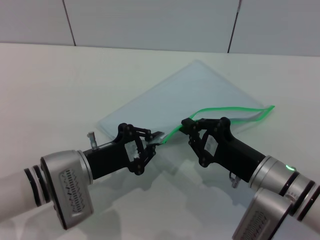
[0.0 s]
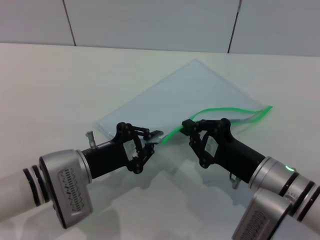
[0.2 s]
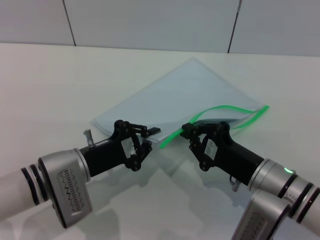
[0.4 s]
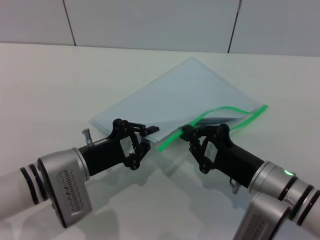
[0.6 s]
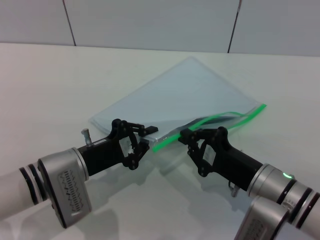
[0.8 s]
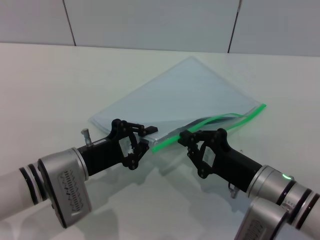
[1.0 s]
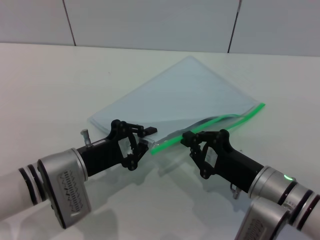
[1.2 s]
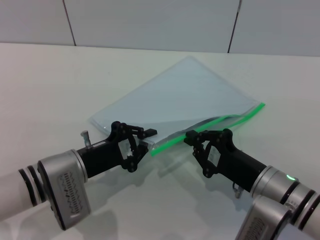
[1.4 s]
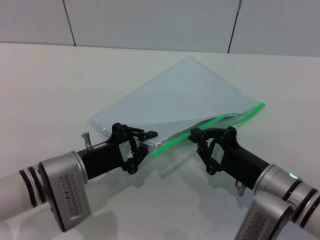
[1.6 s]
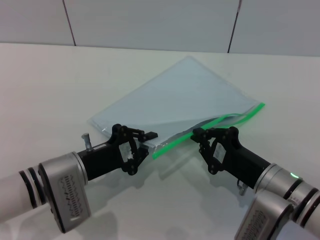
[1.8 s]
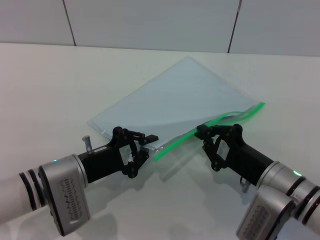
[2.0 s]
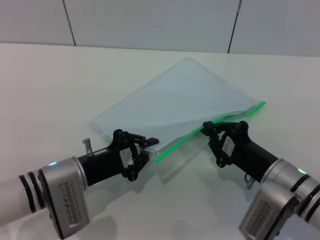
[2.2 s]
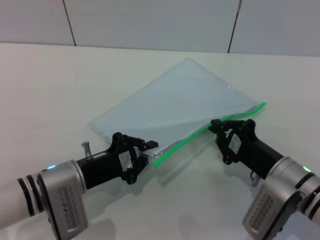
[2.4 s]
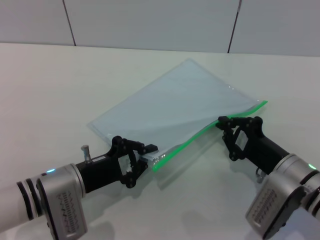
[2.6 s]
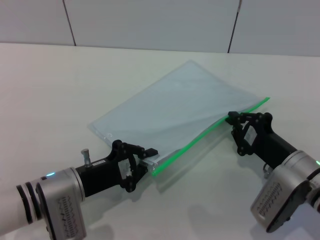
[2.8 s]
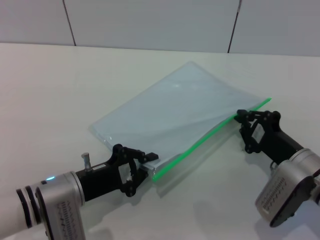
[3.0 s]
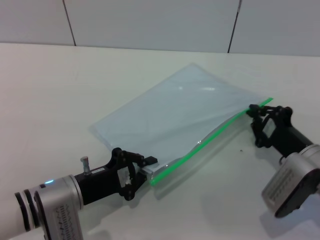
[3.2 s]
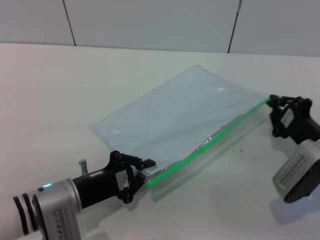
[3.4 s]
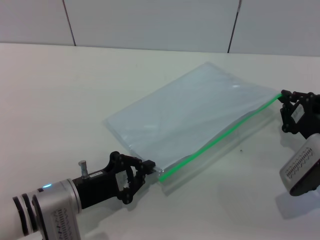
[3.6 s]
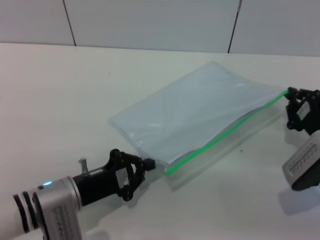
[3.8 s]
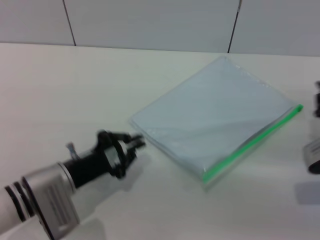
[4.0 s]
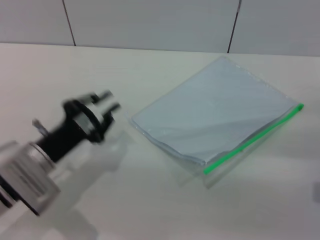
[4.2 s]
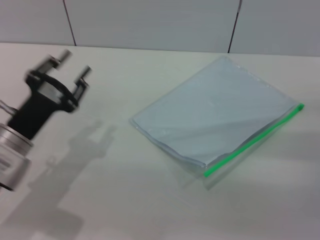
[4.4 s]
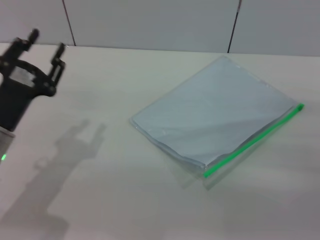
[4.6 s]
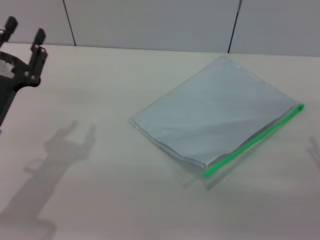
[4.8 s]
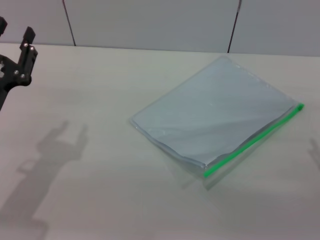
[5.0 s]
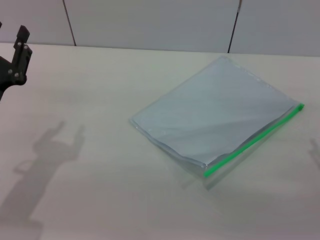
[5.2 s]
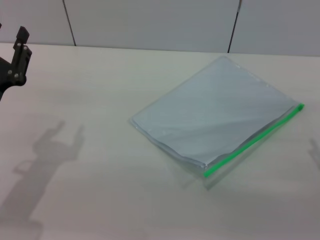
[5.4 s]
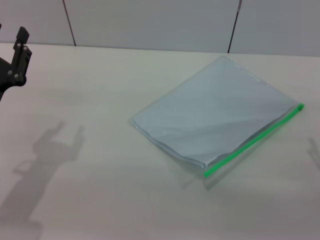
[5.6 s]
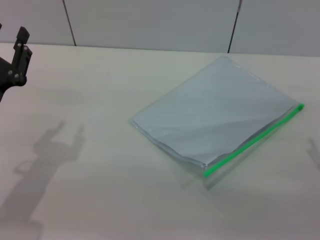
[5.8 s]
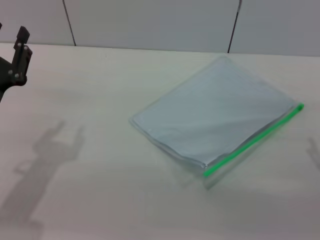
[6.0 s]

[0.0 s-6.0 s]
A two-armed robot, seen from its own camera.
Step, 0.0 to 4.2 s: Pulling up the zipper on the transparent plastic bag with the right gripper to close it.
Step, 4.6 to 5.0 s: Place the transparent plastic bag.
0.0 to 1.6 s: The grippers make only small movements.
1.6 to 3.0 s: The right gripper shifts by approximately 5 cm.
3.0 to 4.4 s: The right gripper goes roughly 10 cm to the right, and opens its fingers; the left gripper moves to the left, roughly 5 cm, and opens.

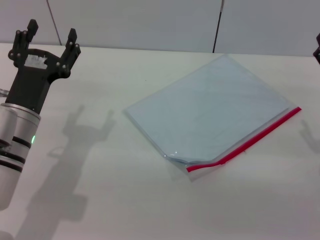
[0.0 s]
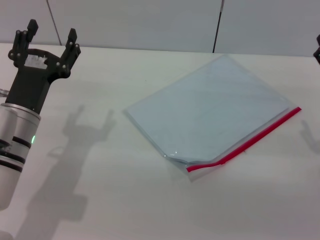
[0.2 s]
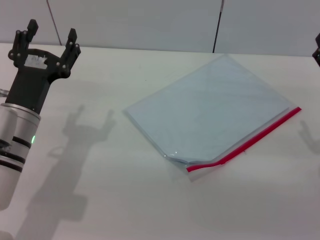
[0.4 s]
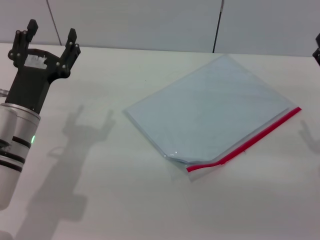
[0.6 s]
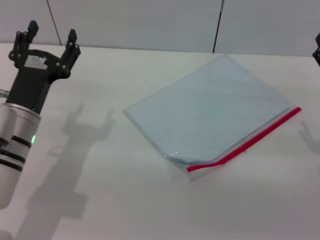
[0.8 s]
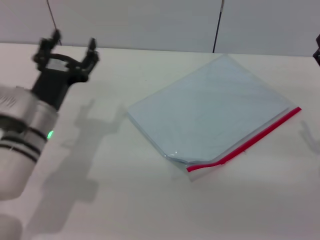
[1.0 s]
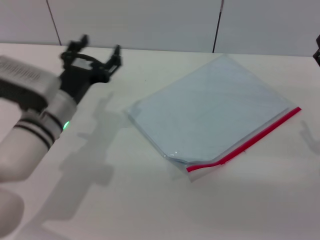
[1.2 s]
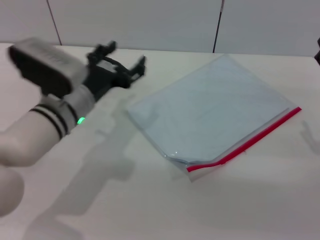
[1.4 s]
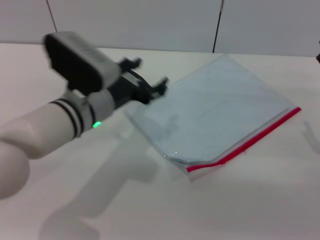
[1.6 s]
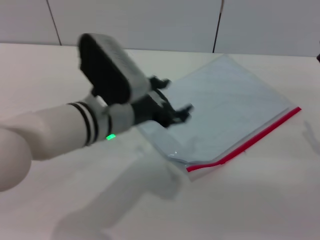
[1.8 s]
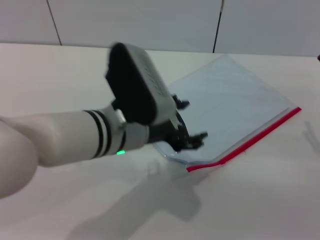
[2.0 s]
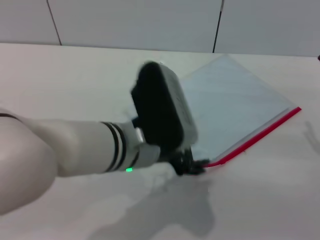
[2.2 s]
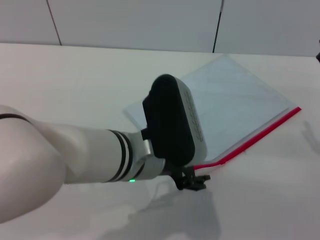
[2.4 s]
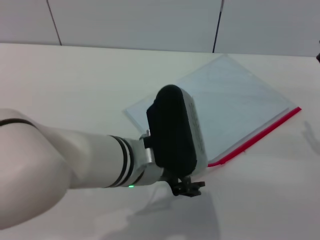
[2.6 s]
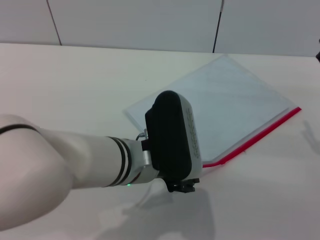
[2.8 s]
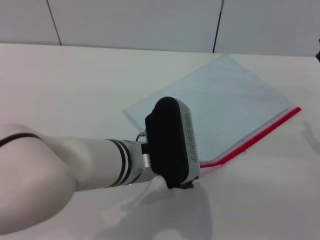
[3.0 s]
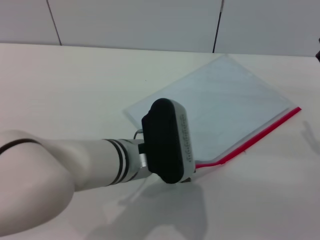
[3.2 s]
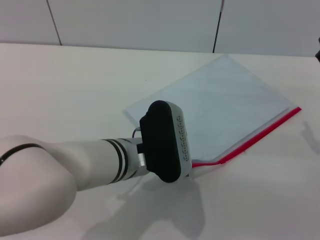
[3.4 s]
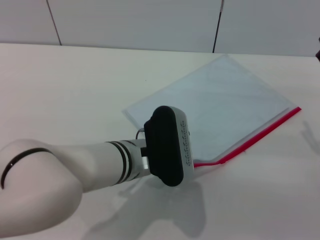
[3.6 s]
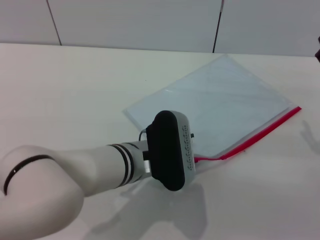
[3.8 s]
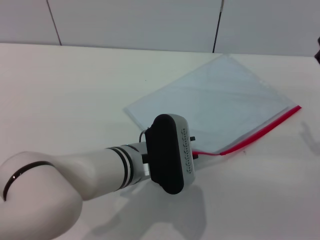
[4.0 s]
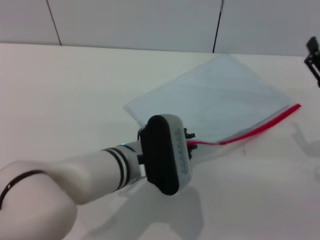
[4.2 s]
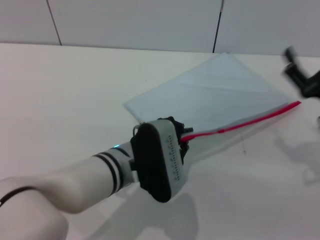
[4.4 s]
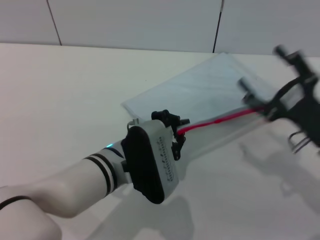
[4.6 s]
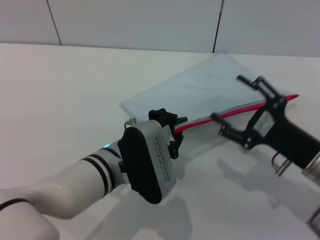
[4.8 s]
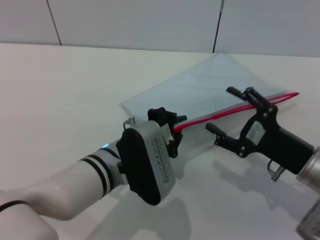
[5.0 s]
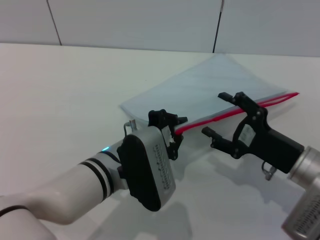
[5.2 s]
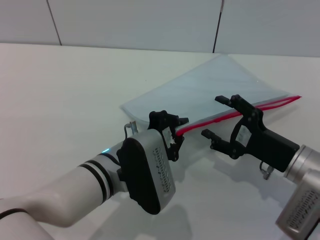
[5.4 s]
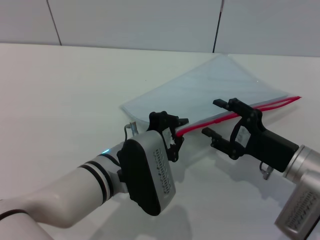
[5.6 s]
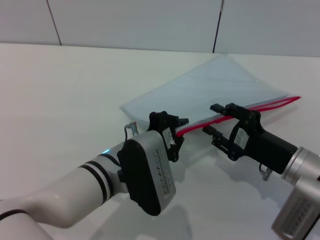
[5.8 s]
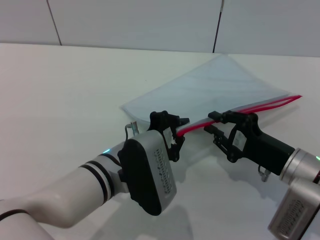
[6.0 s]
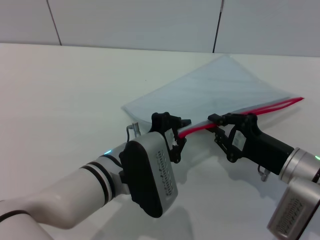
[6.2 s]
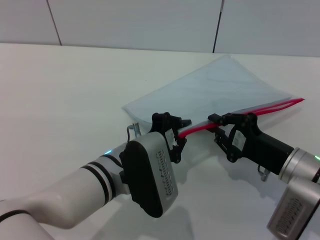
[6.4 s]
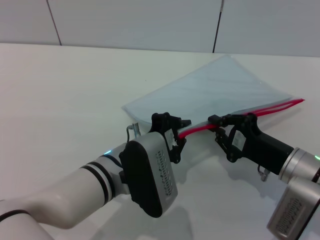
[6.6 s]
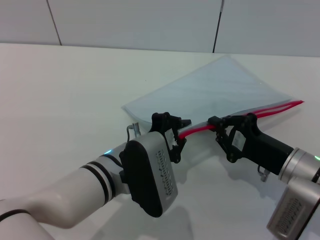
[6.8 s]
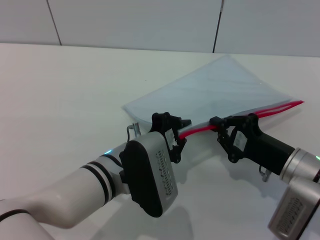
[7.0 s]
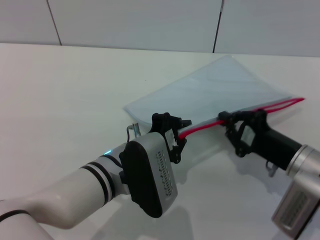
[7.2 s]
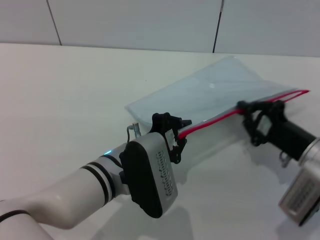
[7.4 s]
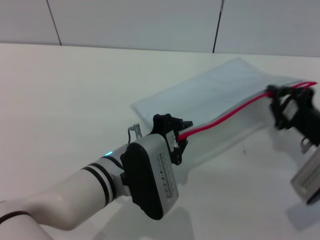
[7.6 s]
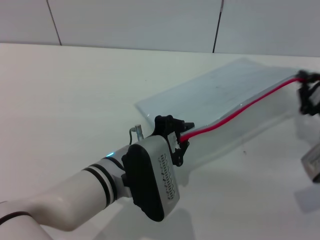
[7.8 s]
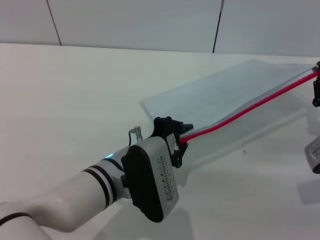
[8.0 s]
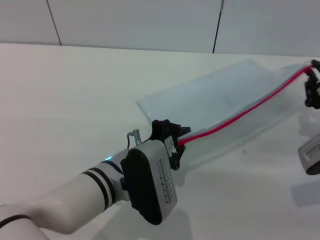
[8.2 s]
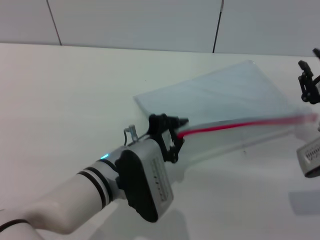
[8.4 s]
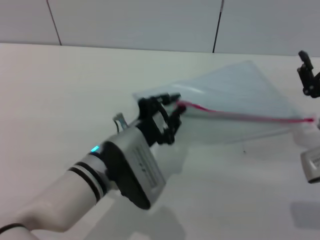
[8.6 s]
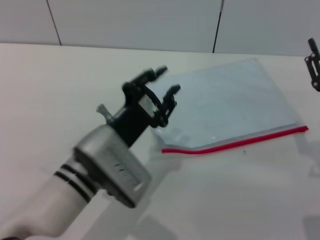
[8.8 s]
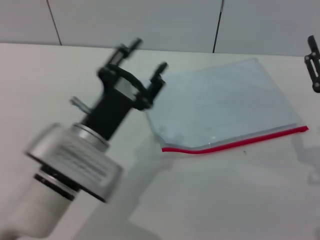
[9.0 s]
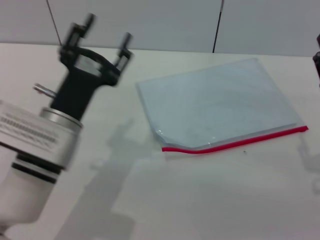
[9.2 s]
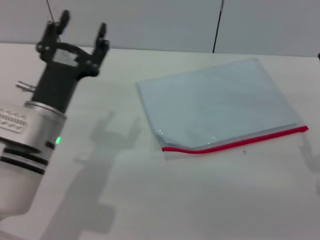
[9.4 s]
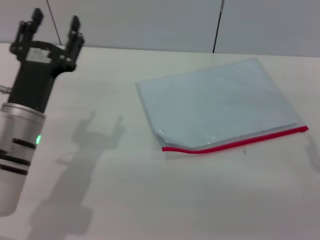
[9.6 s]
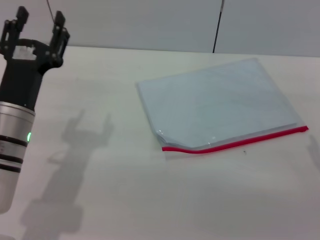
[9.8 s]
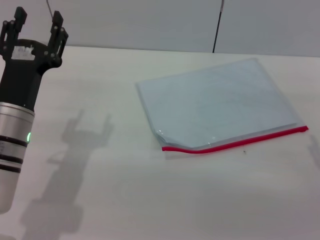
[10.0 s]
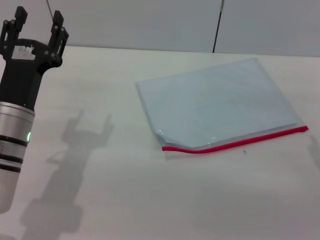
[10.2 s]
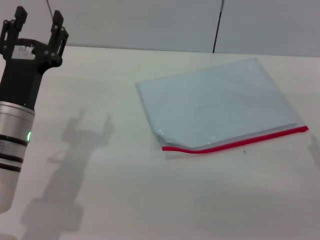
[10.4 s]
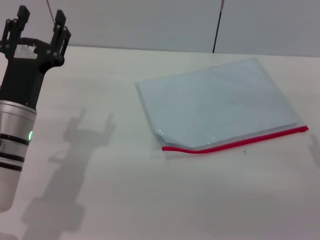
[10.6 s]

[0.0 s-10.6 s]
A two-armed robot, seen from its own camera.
Step, 0.0 to 4.4 s: Pick up the transparent plastic bag with the left gripper.
Step, 4.6 to 8.6 s: Pulling up the zipper on the transparent plastic bag with the right gripper to close it.
Step, 8.8 to 9.6 s: Place the transparent plastic bag.
0.0 to 1.6 s: The left gripper moves to the right, approximately 10 cm.
1.6 to 3.0 s: The left gripper moves to the right and backward, roughly 10 cm.
3.0 to 4.6 s: The left gripper closes its fingers.
4.6 to 6.0 s: The right gripper closes its fingers.
6.0 to 7.6 s: The right gripper moves to the right, about 5 cm, and closes its fingers.
7.6 to 9.0 s: The left gripper opens up. The right gripper shifts by roughly 5 cm, and opens its fingers.
9.0 to 10.6 s: The left gripper travels to the left by some 10 cm.

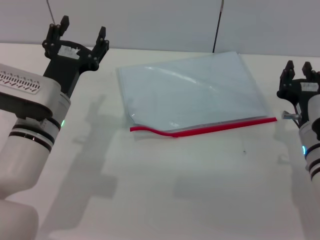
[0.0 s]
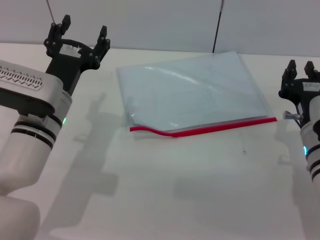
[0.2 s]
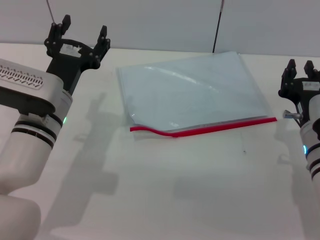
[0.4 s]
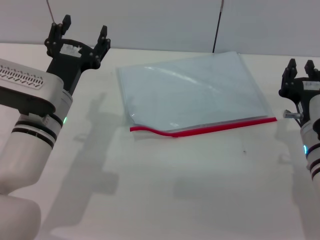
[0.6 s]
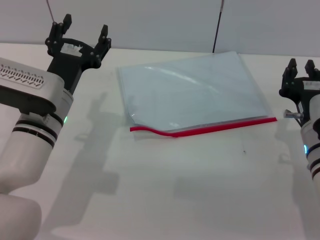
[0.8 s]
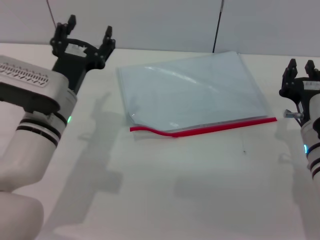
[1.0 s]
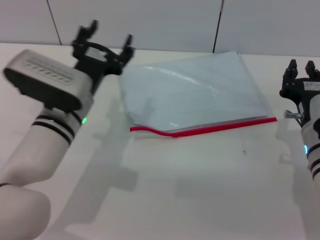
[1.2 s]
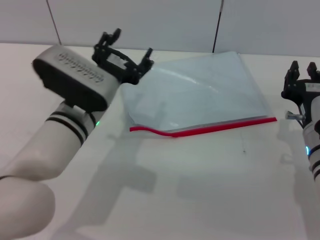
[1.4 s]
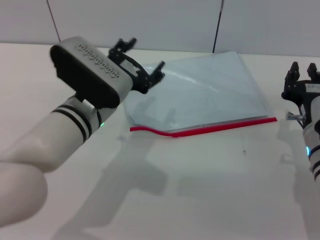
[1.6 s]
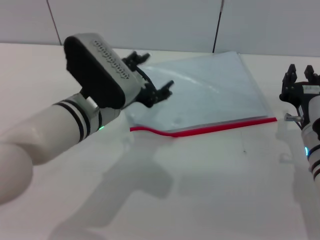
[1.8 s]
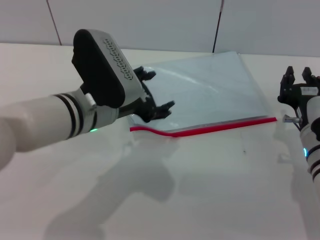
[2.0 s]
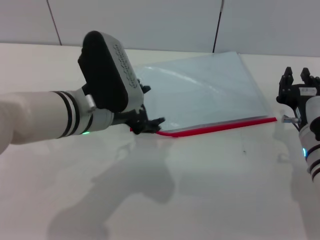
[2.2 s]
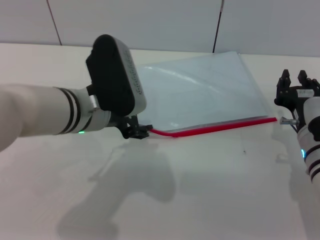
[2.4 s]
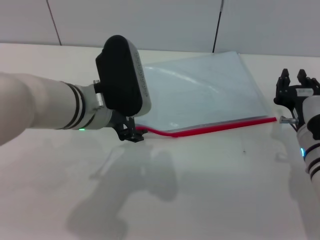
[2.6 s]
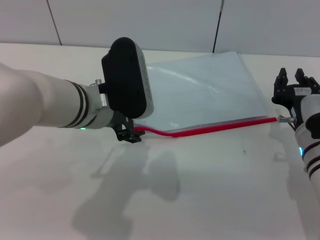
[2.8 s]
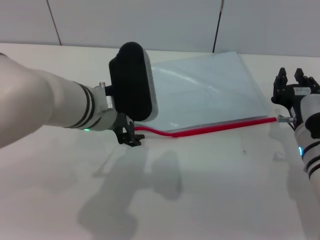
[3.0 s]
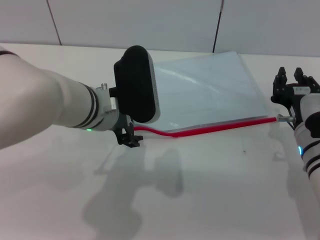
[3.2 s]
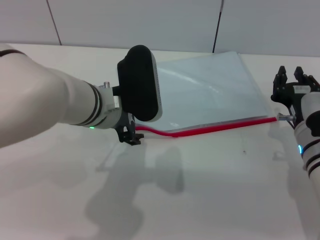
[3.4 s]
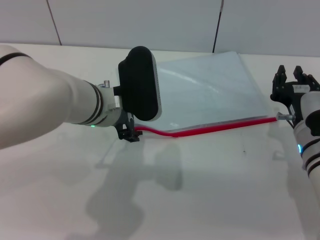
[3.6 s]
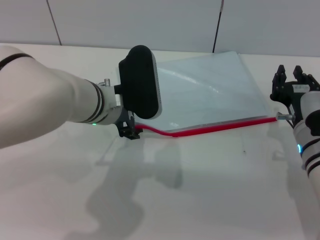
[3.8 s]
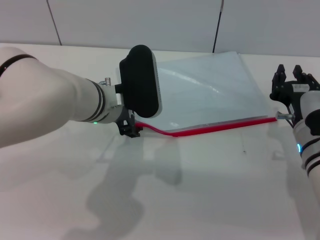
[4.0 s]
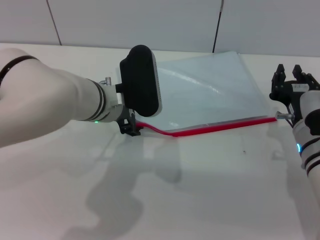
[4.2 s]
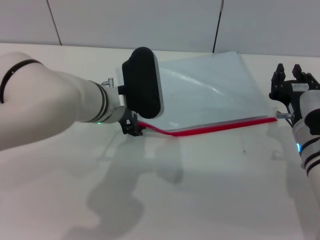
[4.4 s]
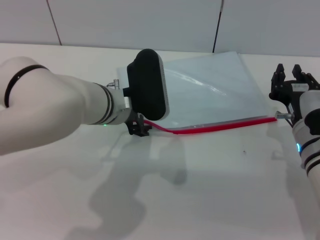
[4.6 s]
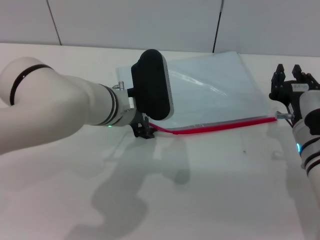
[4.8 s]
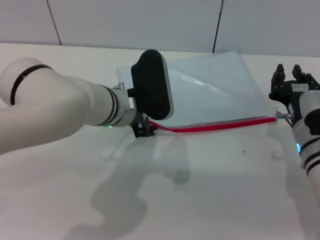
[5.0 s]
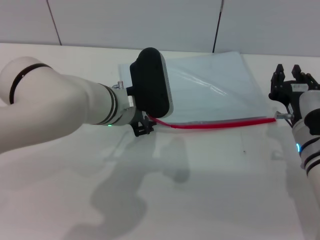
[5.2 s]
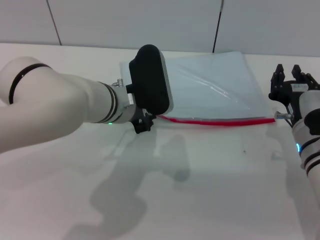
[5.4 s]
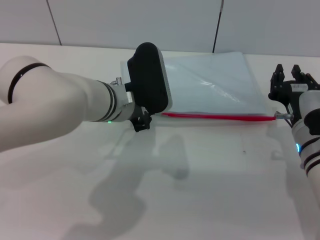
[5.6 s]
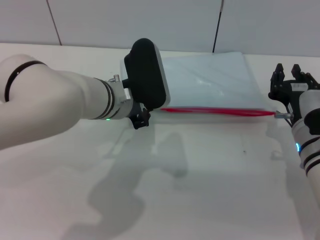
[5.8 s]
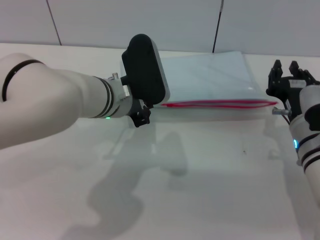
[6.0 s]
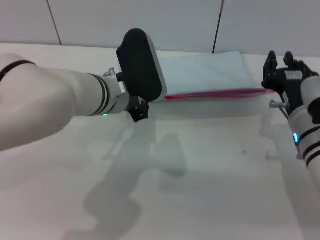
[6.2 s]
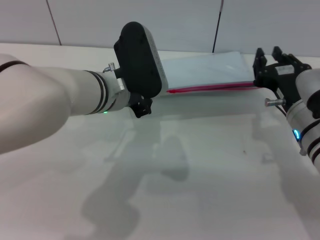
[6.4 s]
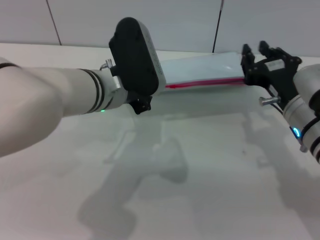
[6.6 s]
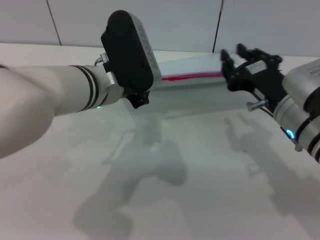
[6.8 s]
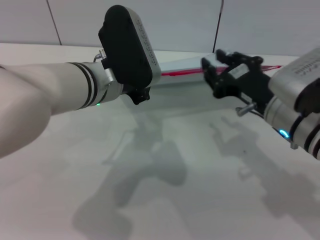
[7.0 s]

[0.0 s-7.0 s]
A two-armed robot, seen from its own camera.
Step, 0.0 to 6.4 s: Pick up the transparent plastic bag with the left gripper.
0.0 to 1.4 s: The left gripper moves approximately 5 cm.
1.4 to 2.8 s: The left gripper travels upward by roughly 5 cm.
2.8 to 4.2 s: The grippers stay close to where they were, moving slightly.
4.2 to 5.6 s: The left gripper closes up.
5.6 to 7.0 s: The left gripper moves some 5 cm; the right gripper travels upward by roughly 10 cm.
